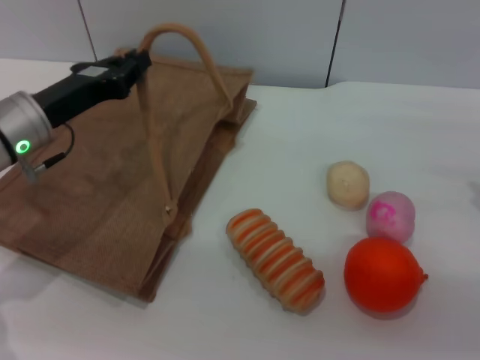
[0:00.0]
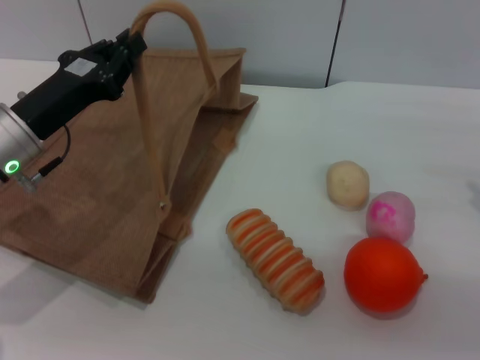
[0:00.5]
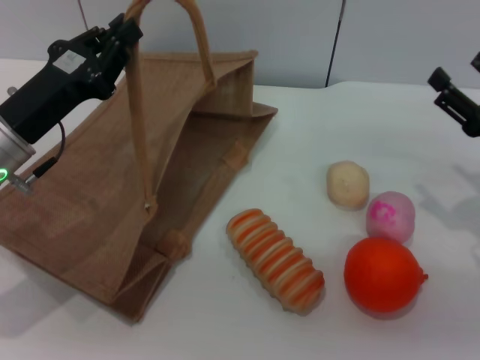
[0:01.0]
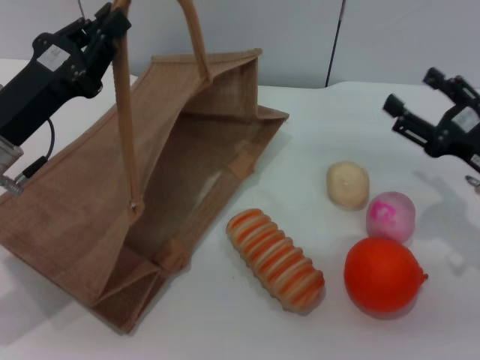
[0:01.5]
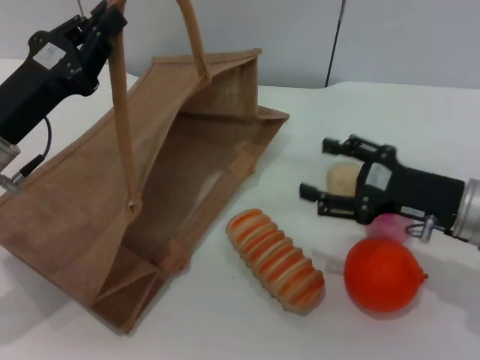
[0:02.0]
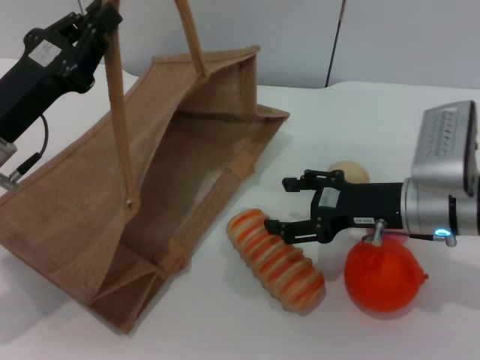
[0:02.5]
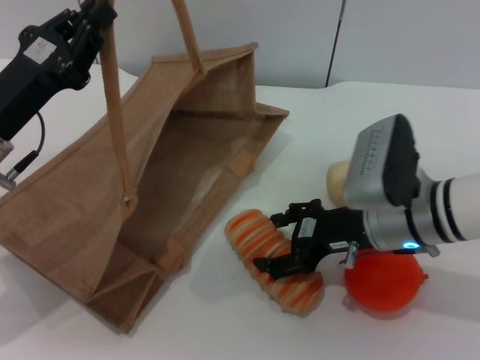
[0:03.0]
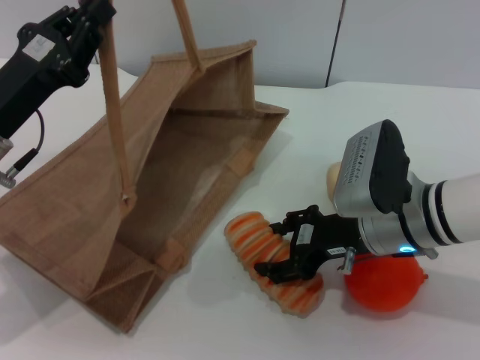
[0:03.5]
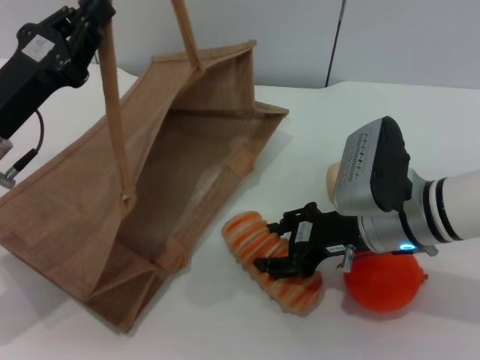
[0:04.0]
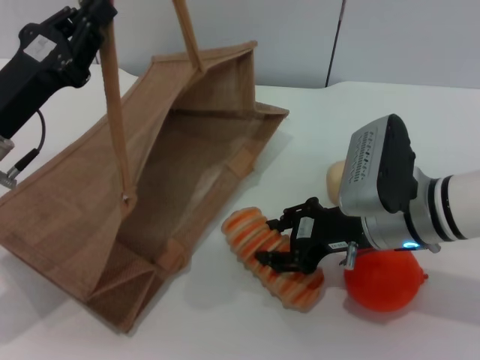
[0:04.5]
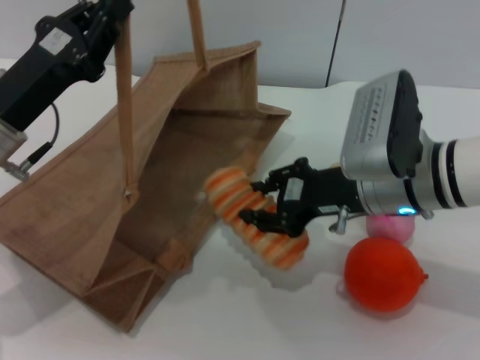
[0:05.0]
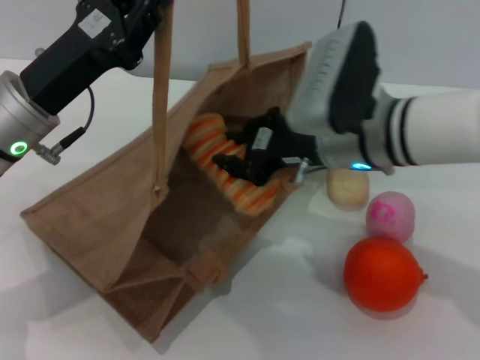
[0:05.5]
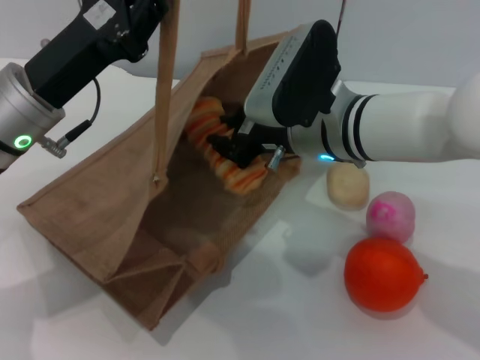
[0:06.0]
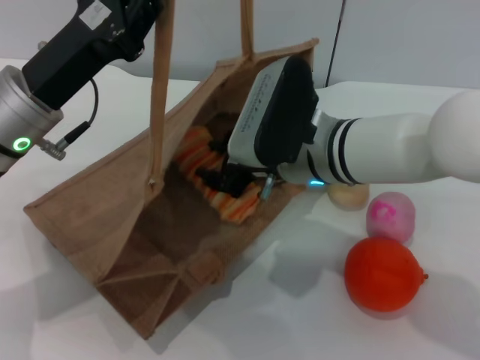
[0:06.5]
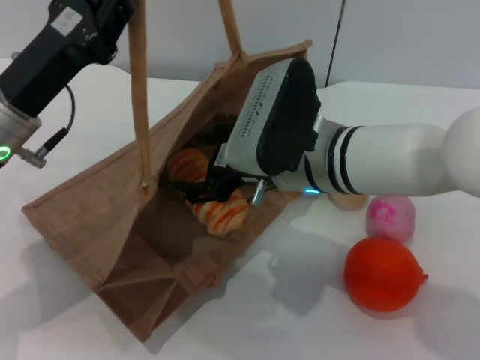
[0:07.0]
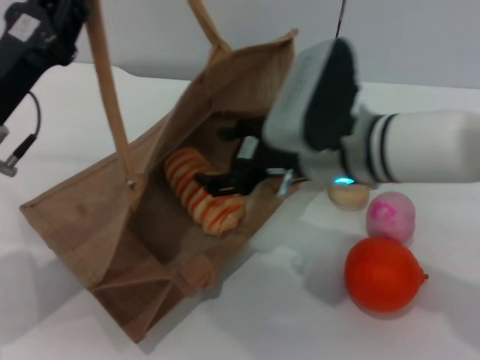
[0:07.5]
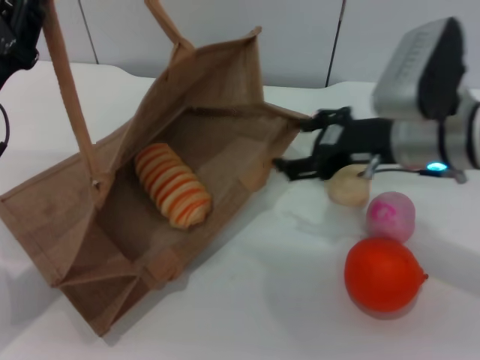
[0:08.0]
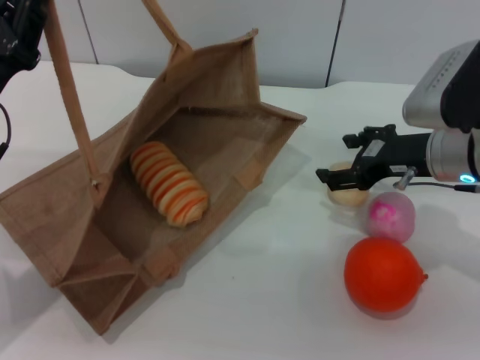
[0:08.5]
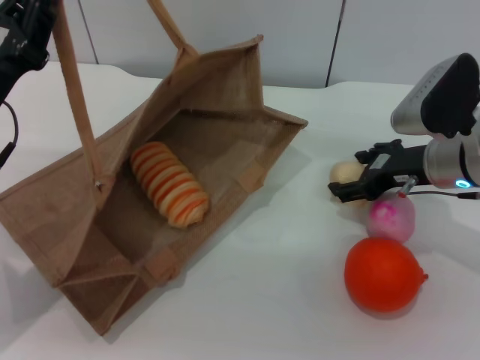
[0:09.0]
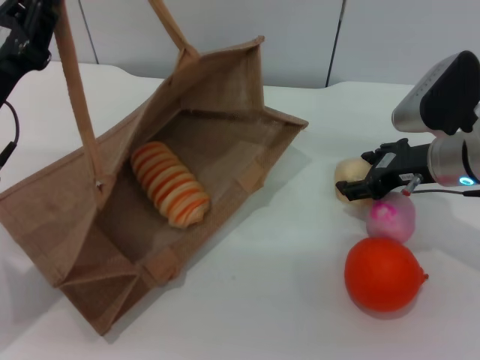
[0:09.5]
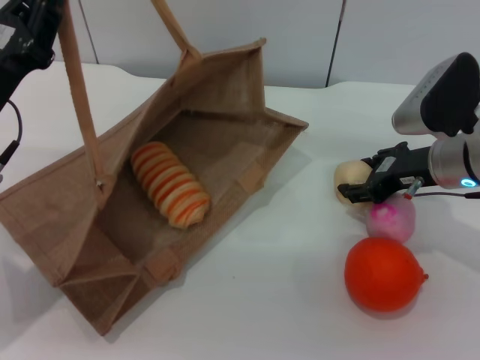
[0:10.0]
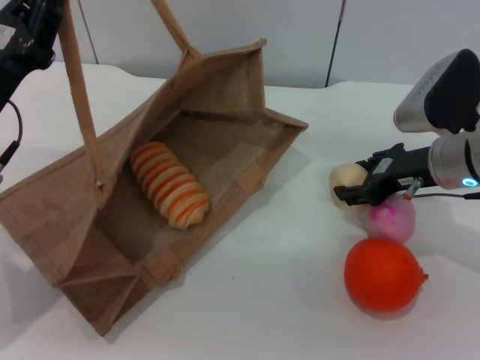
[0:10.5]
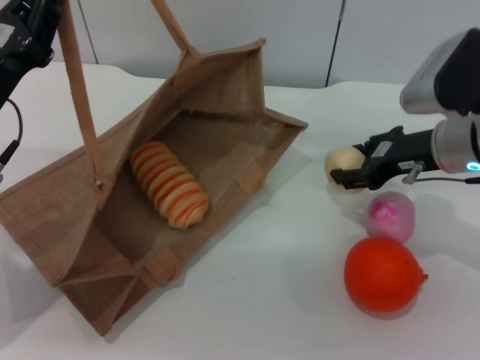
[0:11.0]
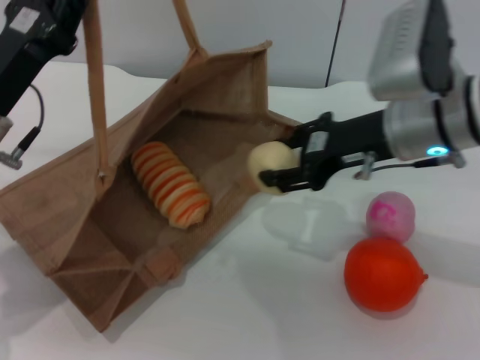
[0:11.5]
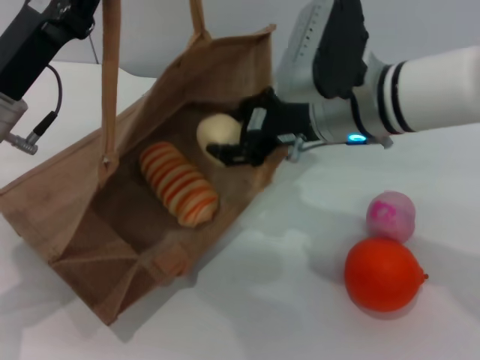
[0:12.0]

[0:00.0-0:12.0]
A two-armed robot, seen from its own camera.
Task of the whole recording: pick up the bread and egg yolk pastry from the table and place it in the brown handbag.
Step, 0:01.0 to 0:05.0: Pick up the bread with the right gripper.
Step, 0:05.5 to 0:07.5: Place the bread into the woven bag with the right gripper.
Step, 0:08.0 to 0:11.0: Pick up the egg yolk pastry with the right gripper.
0:00.0 to 0:02.0: The left gripper moves backward, approximately 5 cm, while the right gripper moves to the left, approximately 10 cm.
0:02.0 to 0:04.0: The right gripper shifts roughly 10 cm to the left, and closes.
0:04.0 to 0:06.0: The right gripper travels to the left and upward by approximately 10 cm, and closes up, while the left gripper moves approximately 5 cm.
0:06.0 to 0:08.0: The right gripper shifts approximately 10 cm to the right, and opens. The left gripper moves to the left, some 5 cm.
0:08.0 to 0:10.0: The right gripper shifts by roughly 5 cm.
0:10.0 to 0:12.0: The right gripper moves to the left and upward, about 15 cm.

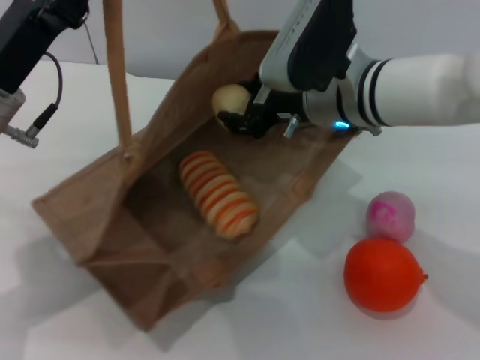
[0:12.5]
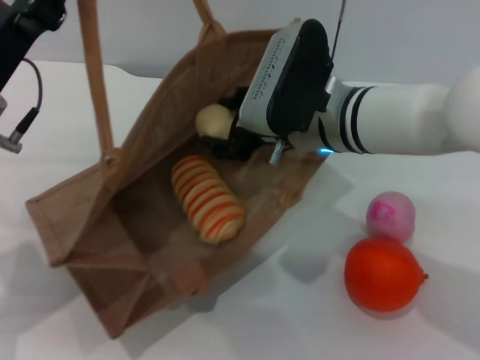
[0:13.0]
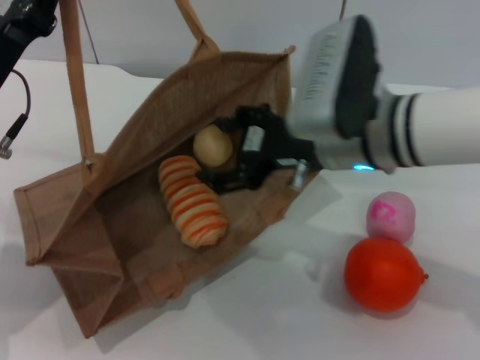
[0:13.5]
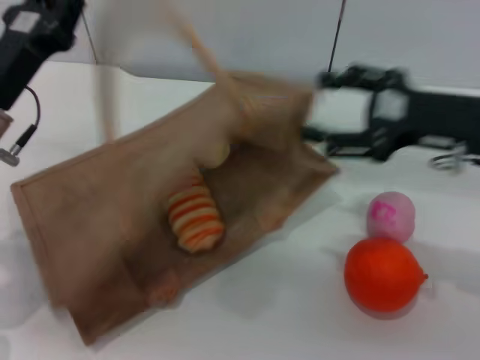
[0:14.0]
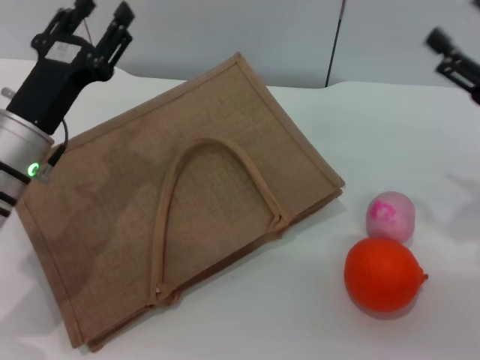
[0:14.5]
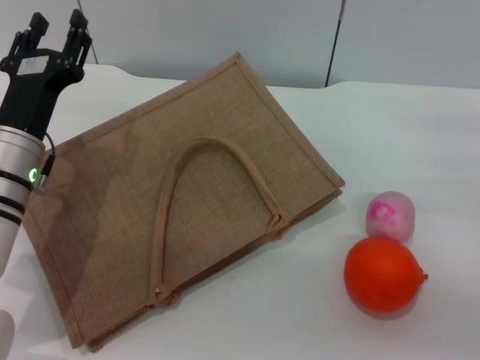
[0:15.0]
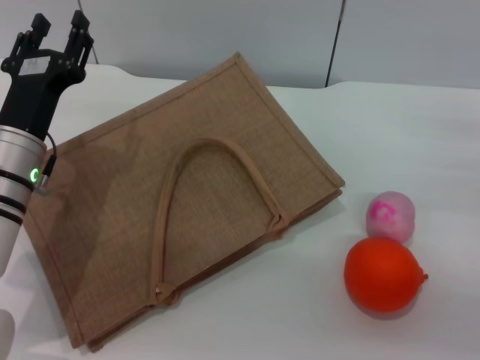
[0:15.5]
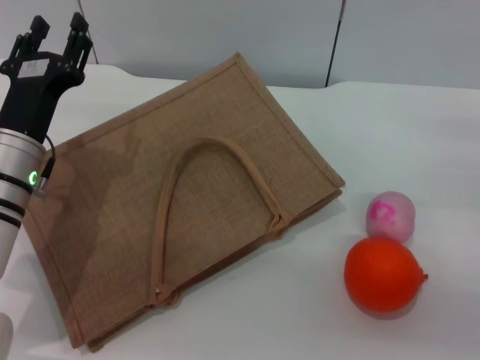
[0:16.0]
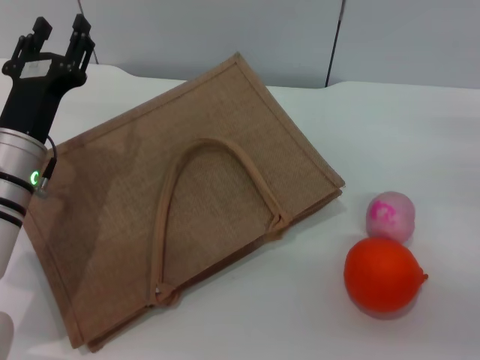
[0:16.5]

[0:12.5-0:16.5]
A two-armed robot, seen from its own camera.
Task of the whole recording: pick up the bread and egg yolk pastry from the table and place it in the brown handbag.
0:12.5 to 0:14.5: The left gripper travels downward by roughly 5 cm, and opens, while the right gripper goes about 20 cm to the right, and opens up.
0:14.5 to 0:16.5: The right gripper is displaced downward by some 5 cm.
